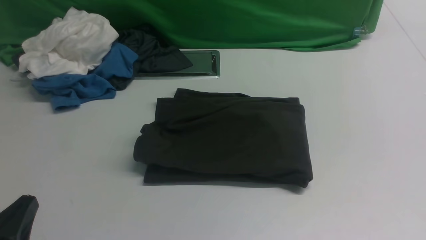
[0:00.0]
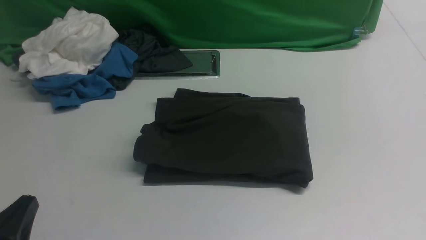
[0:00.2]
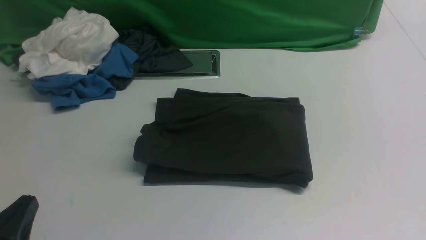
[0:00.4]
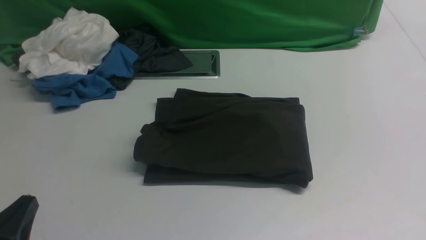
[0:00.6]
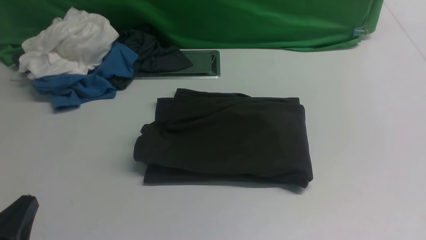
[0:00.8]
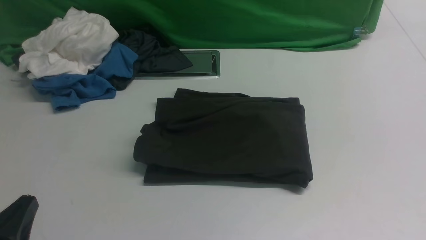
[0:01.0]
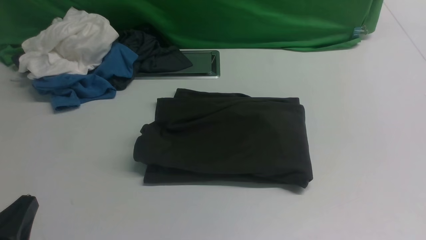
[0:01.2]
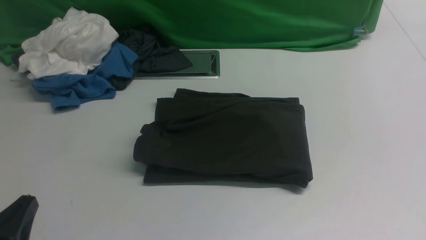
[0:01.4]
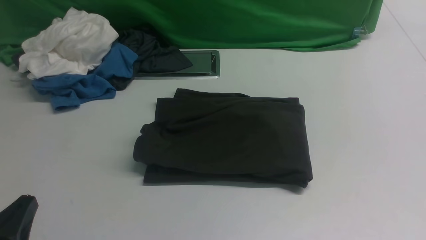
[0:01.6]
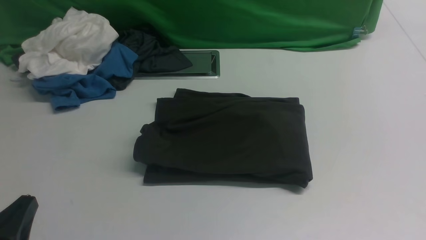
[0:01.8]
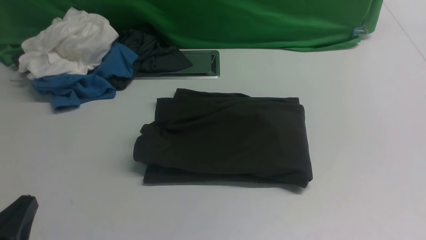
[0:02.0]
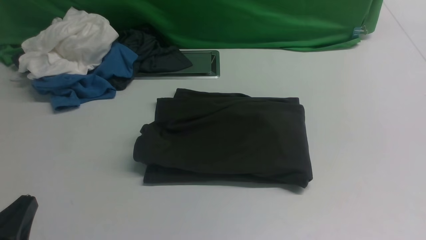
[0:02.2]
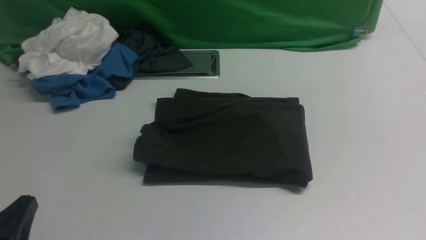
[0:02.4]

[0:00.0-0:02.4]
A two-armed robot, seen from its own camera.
0:01.2 to 0:02.4: Neither gripper changes place.
